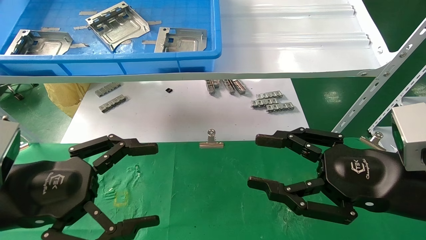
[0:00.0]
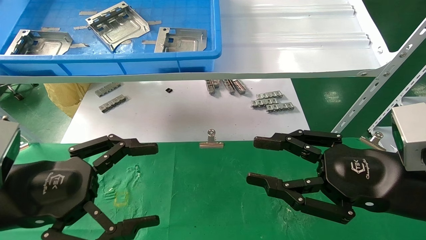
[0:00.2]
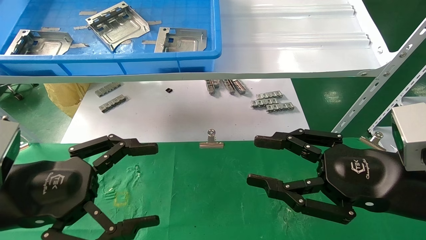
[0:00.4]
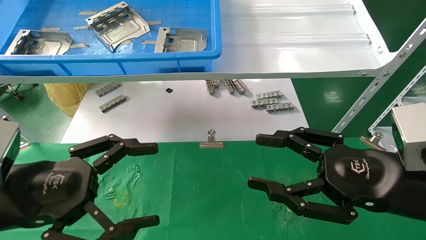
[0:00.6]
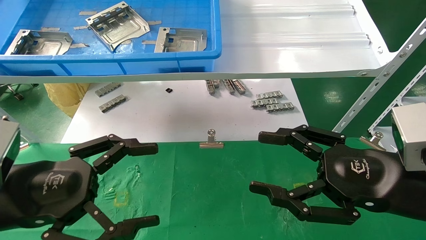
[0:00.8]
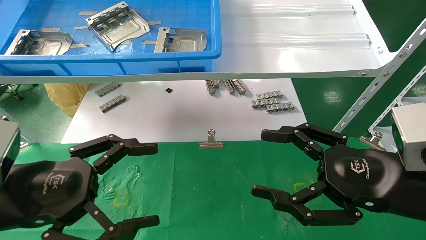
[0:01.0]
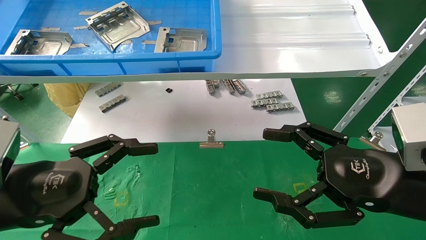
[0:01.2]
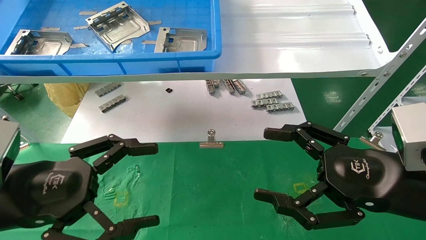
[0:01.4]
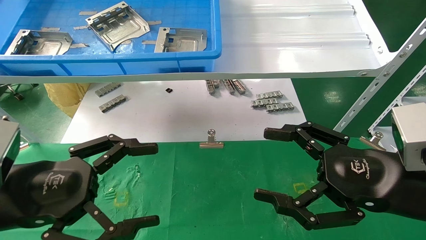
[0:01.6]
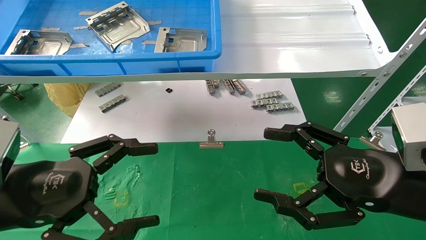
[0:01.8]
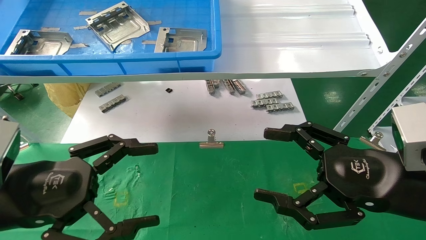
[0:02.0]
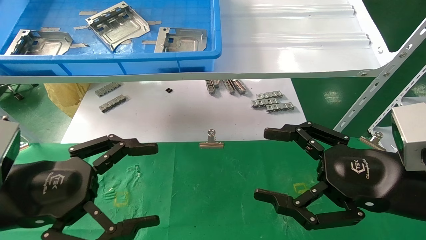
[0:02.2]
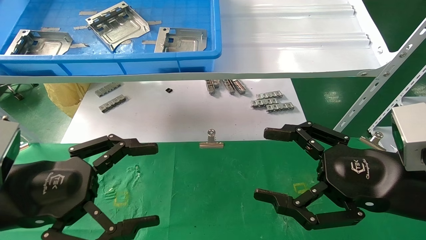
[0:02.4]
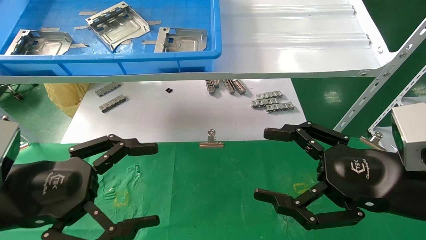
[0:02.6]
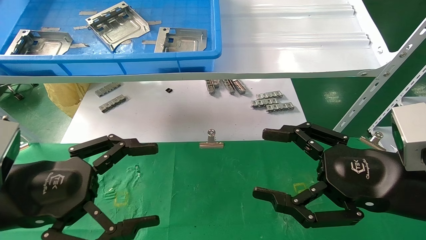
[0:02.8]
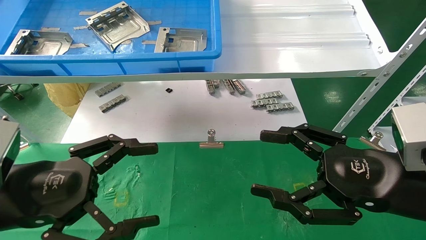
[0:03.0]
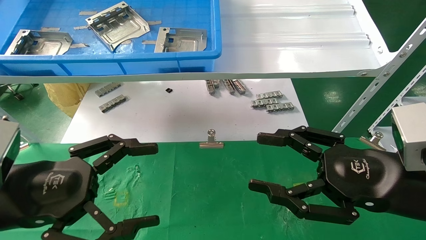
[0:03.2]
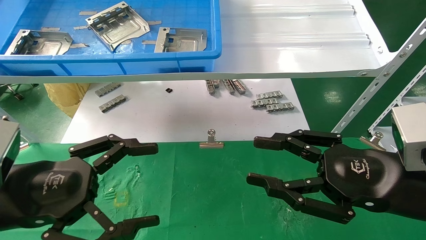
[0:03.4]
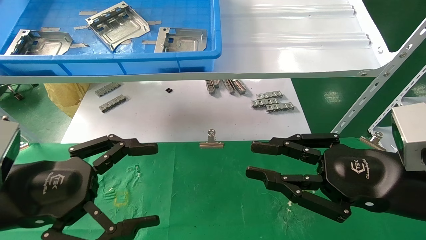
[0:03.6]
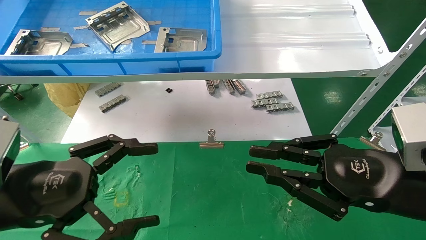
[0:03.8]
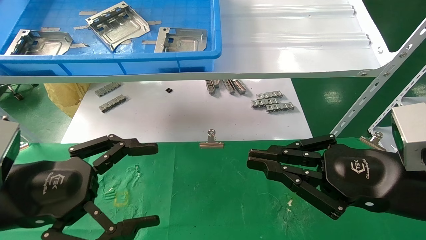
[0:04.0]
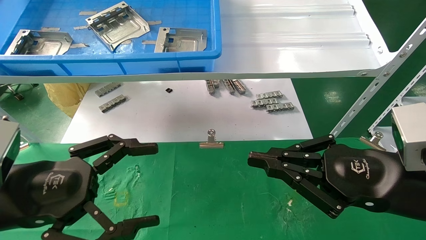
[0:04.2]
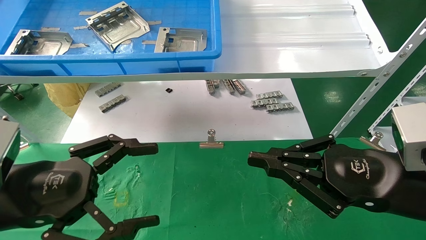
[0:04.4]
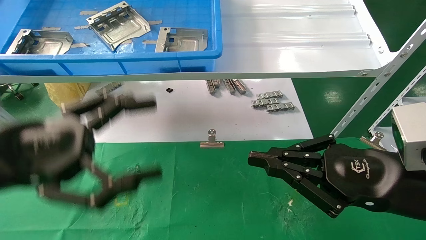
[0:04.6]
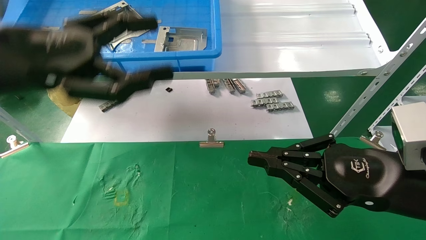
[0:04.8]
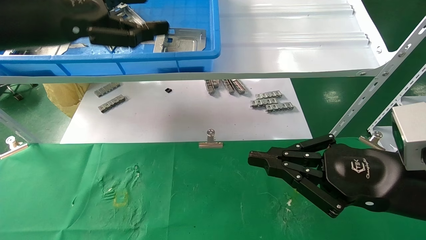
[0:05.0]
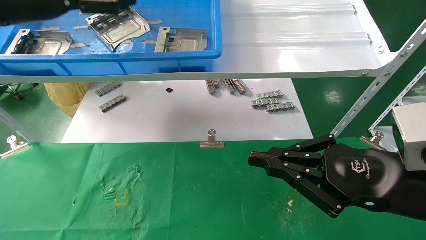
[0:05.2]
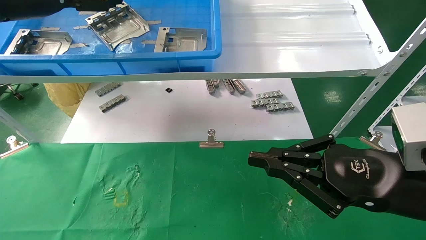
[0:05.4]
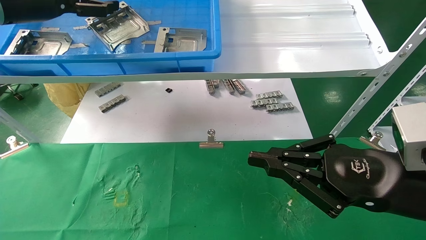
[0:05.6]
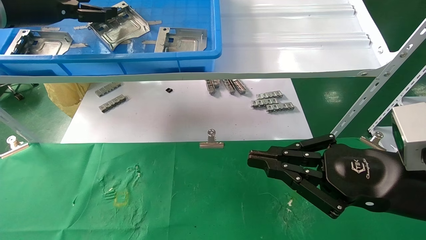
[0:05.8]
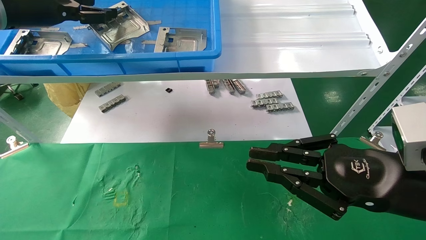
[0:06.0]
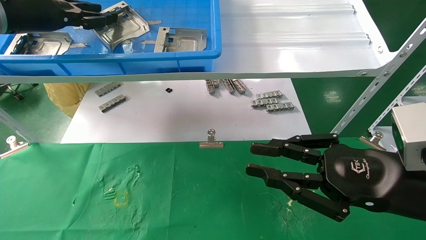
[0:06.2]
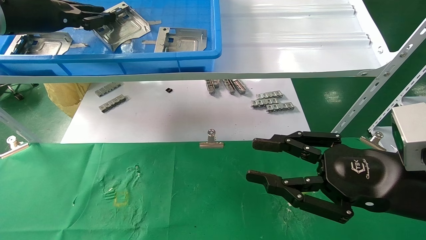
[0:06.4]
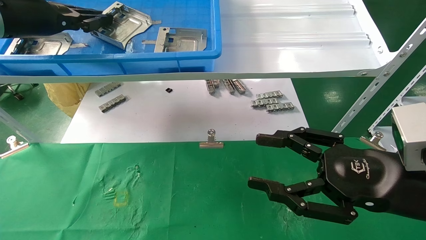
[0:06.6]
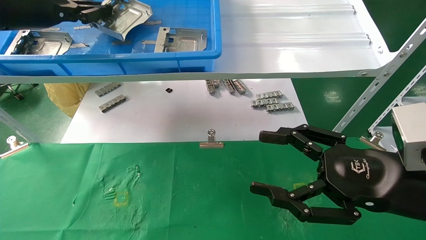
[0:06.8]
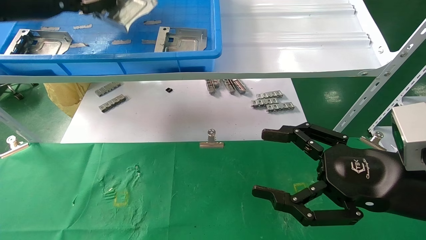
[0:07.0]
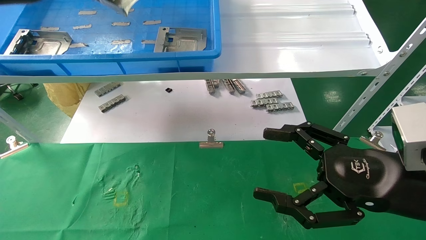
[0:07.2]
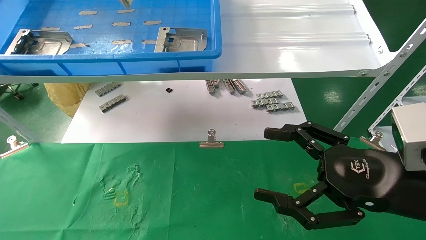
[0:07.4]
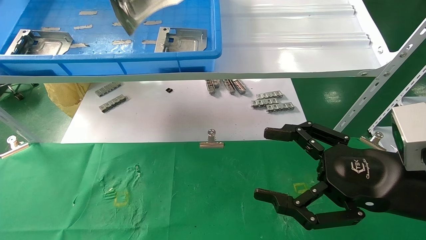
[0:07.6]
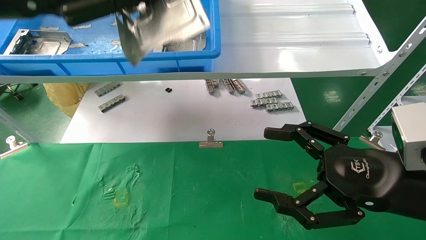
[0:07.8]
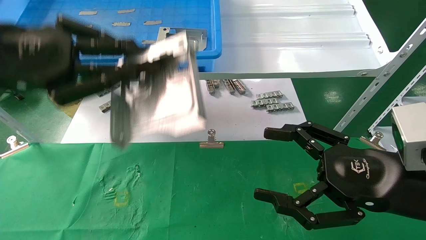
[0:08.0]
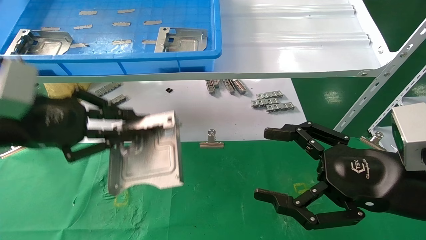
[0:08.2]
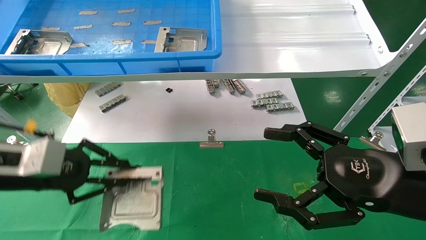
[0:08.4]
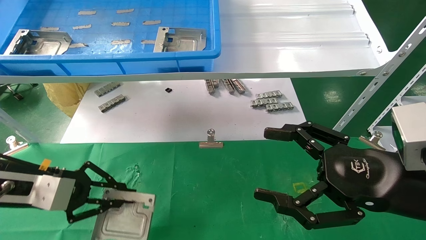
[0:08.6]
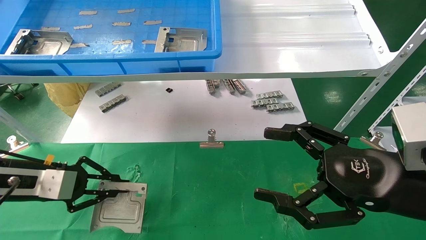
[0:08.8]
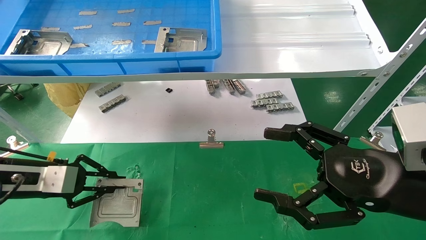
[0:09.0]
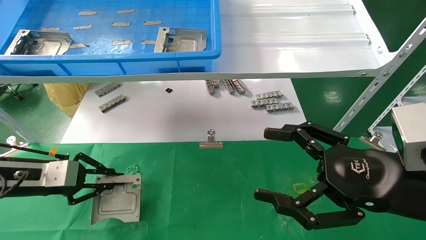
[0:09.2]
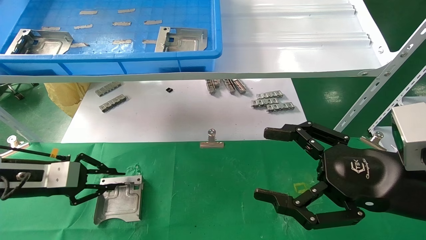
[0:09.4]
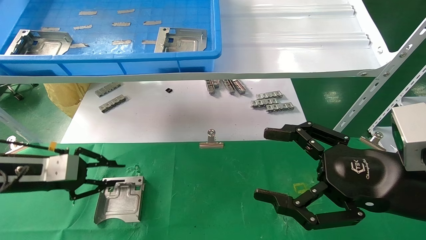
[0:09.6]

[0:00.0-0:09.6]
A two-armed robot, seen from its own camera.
Task of the whole recording: use the mechanical arm to pick up the parts and place them on the table.
Step, 0:04.8 to 0:06.8: Pick up the hard drive bracket from the feeding area.
Step, 0:07.0 to 0:09.4: Place the hard drive bracket into the box.
0:00.0 to 0:01.6: The right gripper opens its fingers.
0:01.6 to 0:03.2: Both grippers stay put.
0:03.2 to 0:04.8: The right gripper closes up; the left gripper heads upward and forward, covering about 15 cm.
0:04.8 to 0:06.4: The left gripper goes some 15 cm forward, upward and to the left, and closes up.
0:06.4 to 0:08.0: The right gripper opens its fingers, while the left gripper moves backward and downward, about 15 cm.
0:08.0 to 0:09.6: The left gripper shifts about 20 cm downward and forward.

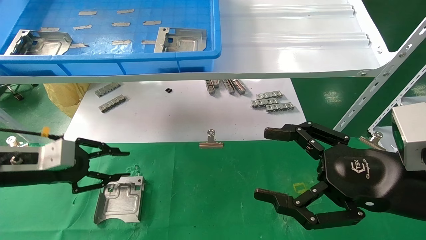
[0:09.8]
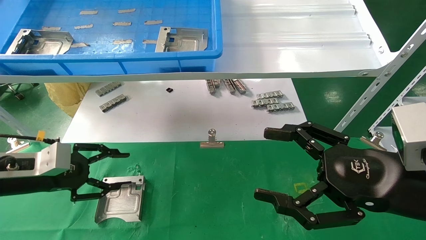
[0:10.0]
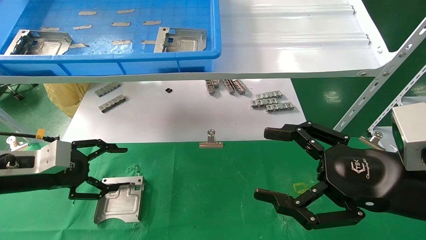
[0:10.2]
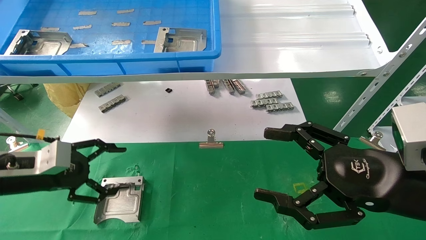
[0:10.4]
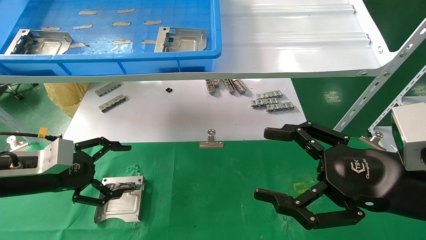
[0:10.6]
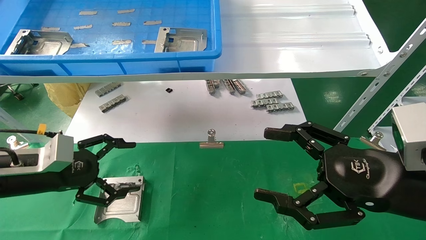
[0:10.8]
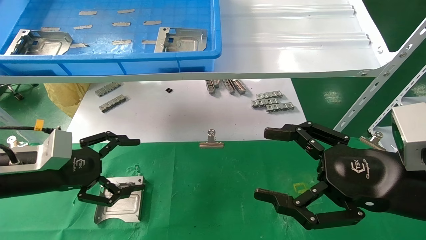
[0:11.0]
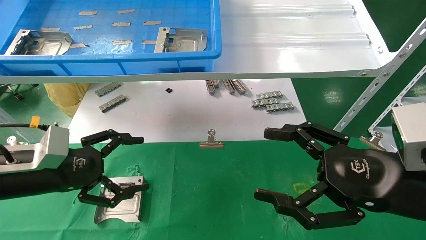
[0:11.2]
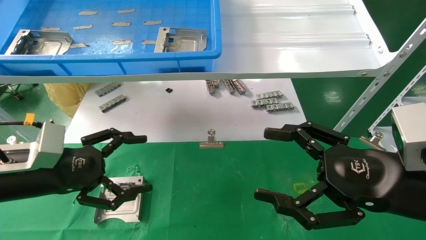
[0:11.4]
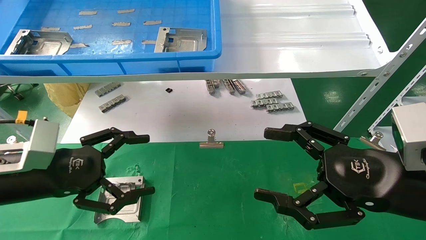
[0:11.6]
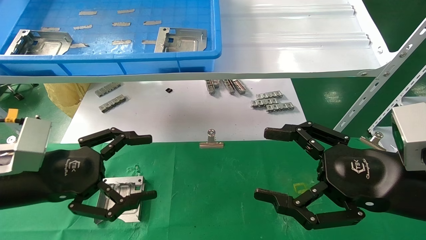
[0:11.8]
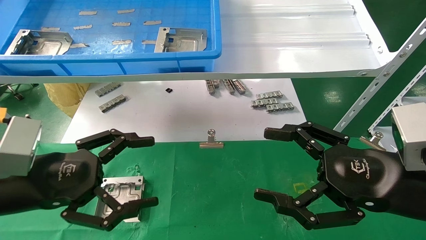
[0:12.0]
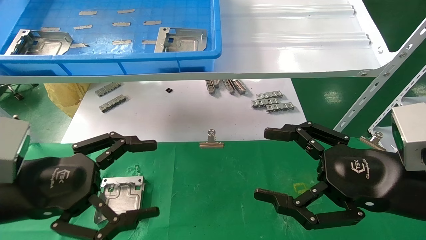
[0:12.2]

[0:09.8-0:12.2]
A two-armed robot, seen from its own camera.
Task of the whole recording: use the mechanical arm to pick up the parts and place them on the table.
0:09.8 to 0:11.0: The left gripper changes place by some 5 cm, and opens up.
0:11.0 to 0:12.2: The left gripper heads backward, covering about 10 cm.
